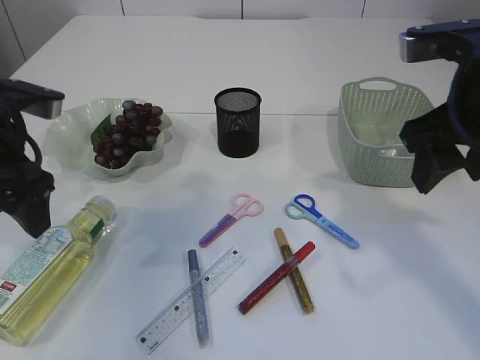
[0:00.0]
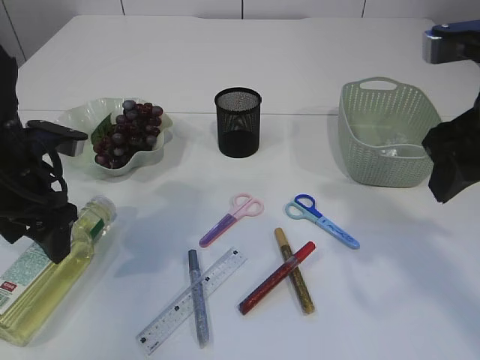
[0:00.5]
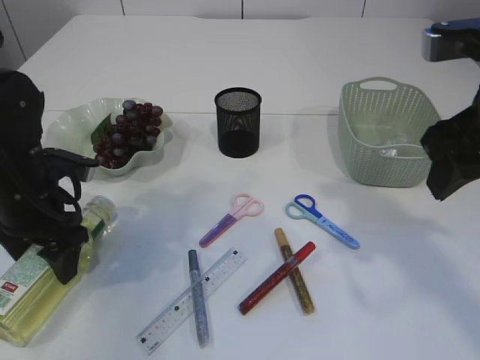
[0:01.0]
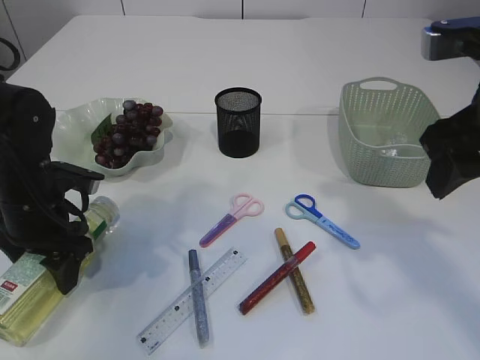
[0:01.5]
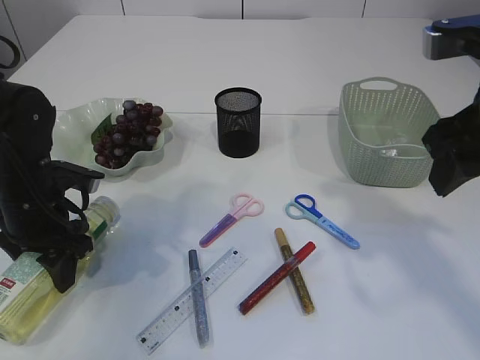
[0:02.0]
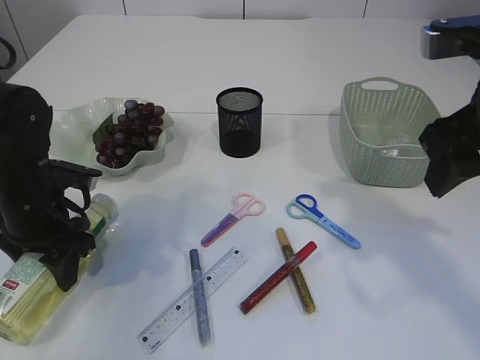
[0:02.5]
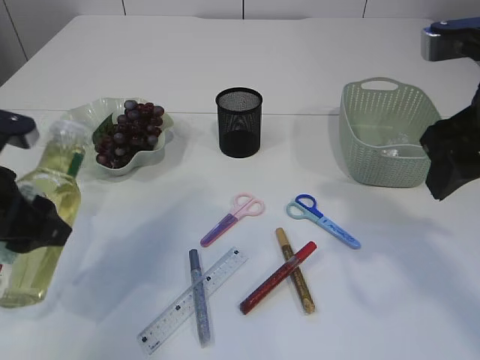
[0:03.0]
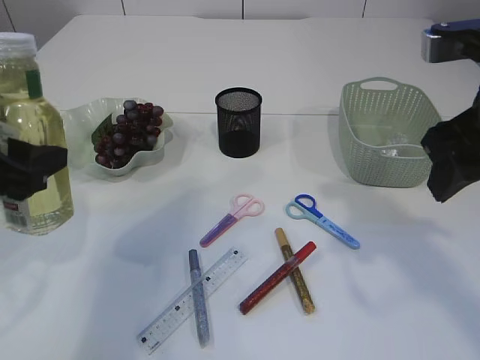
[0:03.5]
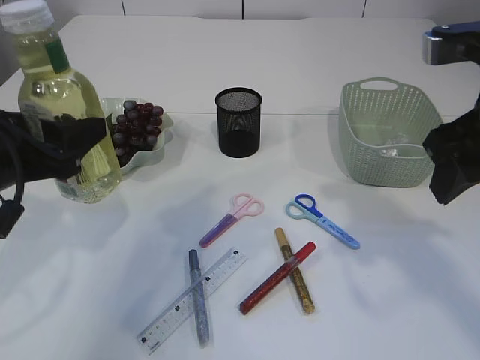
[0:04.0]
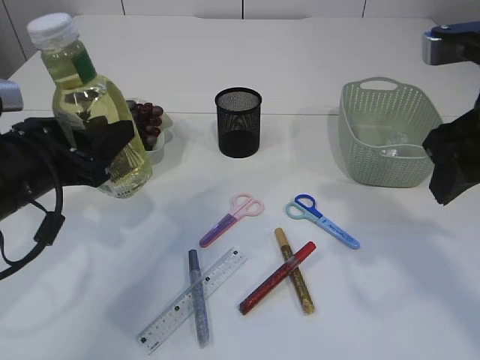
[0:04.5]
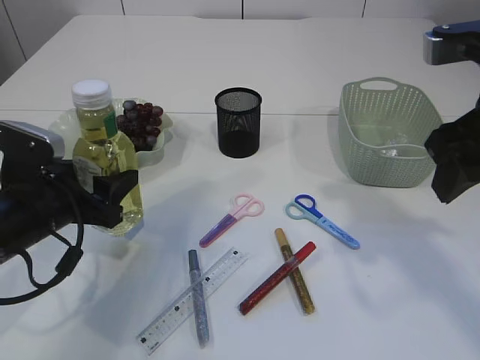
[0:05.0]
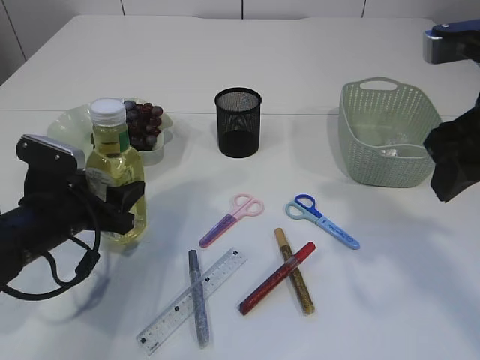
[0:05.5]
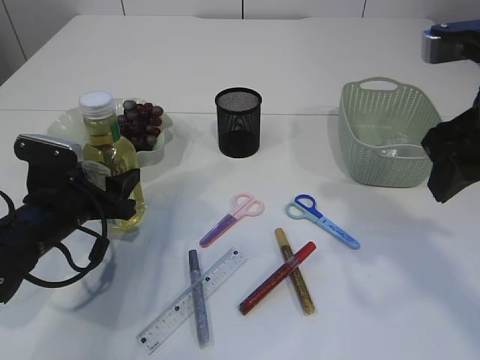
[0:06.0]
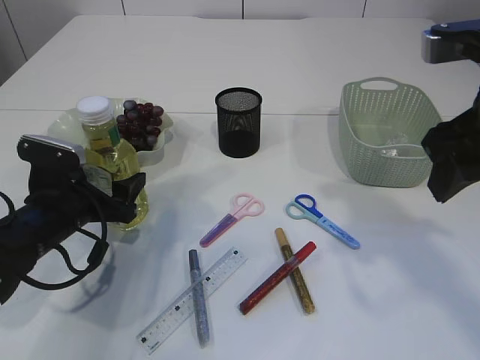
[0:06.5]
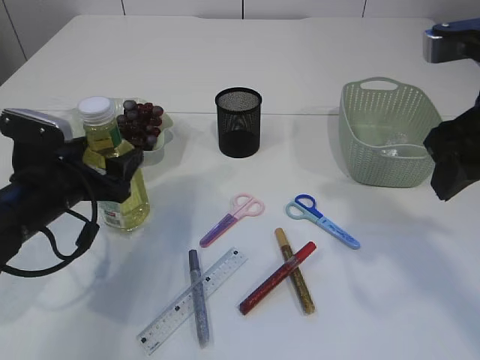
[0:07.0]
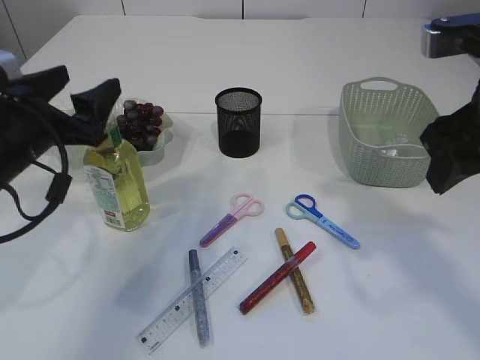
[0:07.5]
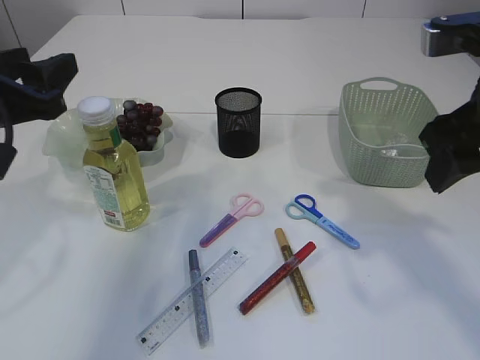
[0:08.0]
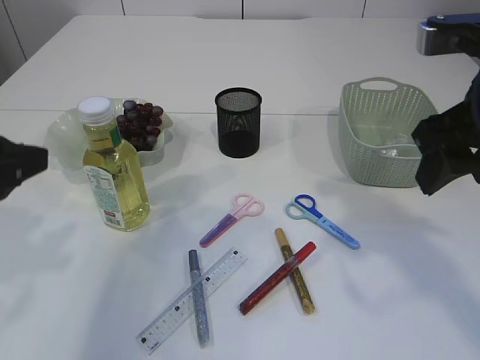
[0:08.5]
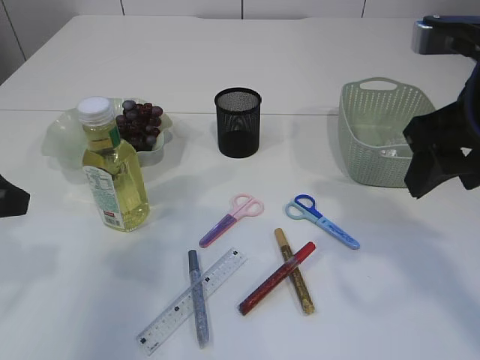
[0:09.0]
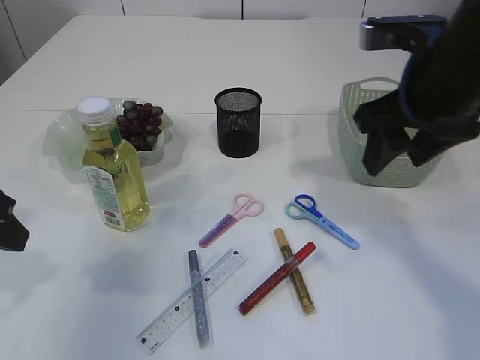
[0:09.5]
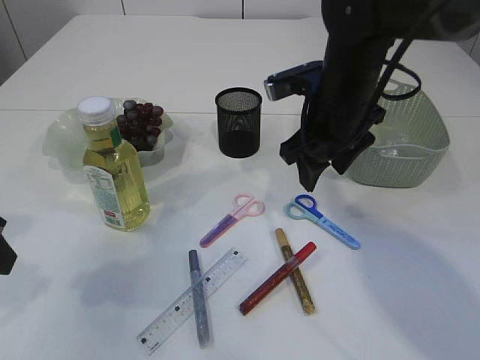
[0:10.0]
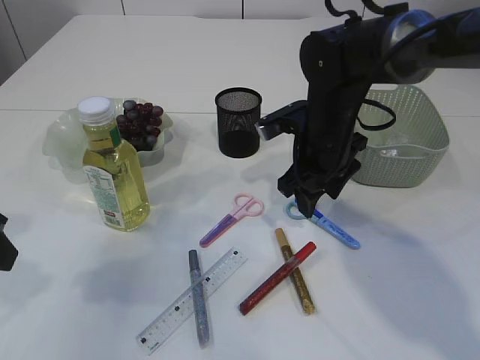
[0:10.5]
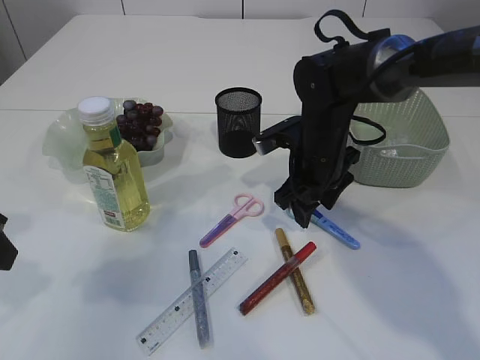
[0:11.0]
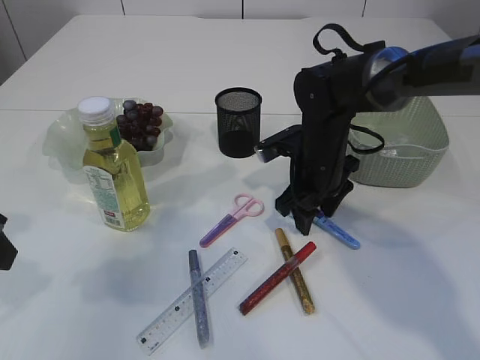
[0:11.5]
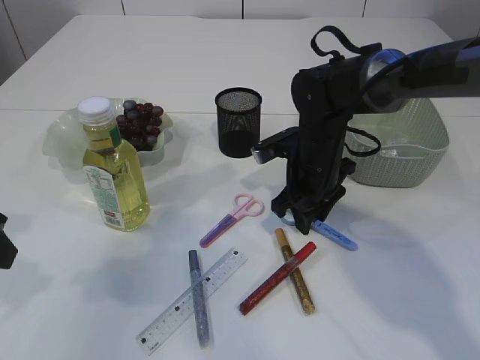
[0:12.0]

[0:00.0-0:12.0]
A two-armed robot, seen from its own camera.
Step, 0:00.0 to 0:03.0: Pick up the bottle with the left arm.
Step, 0:03.5 to 0:07.0: Place the bottle.
0:00.0 to 0:02.0: The left gripper moves downward, some 10 cm.
0:02.0 to 0:04.0: The left gripper goes approximately 10 cm upward and backward.
0:04.0 to 0:06.0: The left gripper is displaced downward and forward by about 15 cm.
0:06.0 to 0:08.0: The left gripper moves upward, some 15 cm.
0:08.0 to 0:10.0: The right gripper is displaced forward, to the left and downward by some 20 cm. Meanwhile the left gripper travels backward by some 5 cm.
0:10.0 to 0:12.0: The right gripper shifts approximately 10 cm downward.

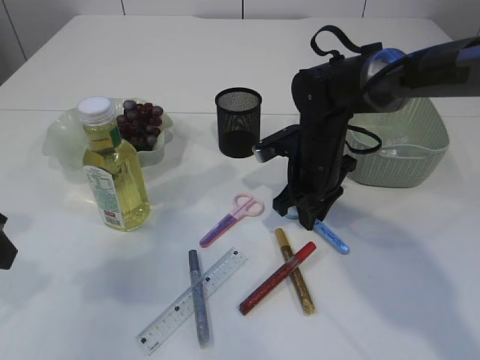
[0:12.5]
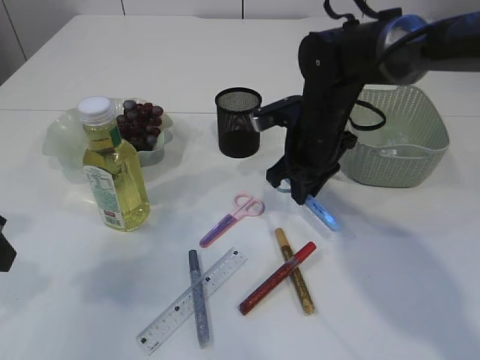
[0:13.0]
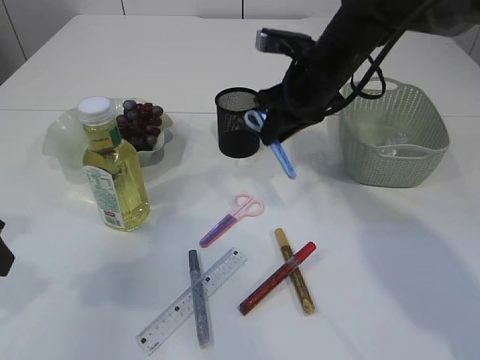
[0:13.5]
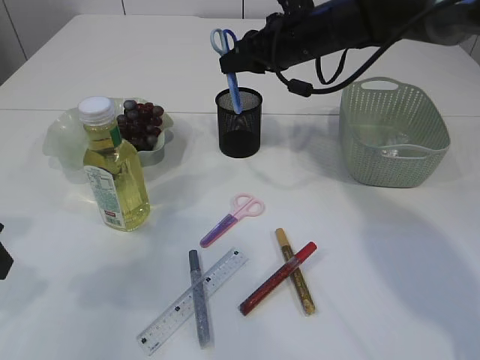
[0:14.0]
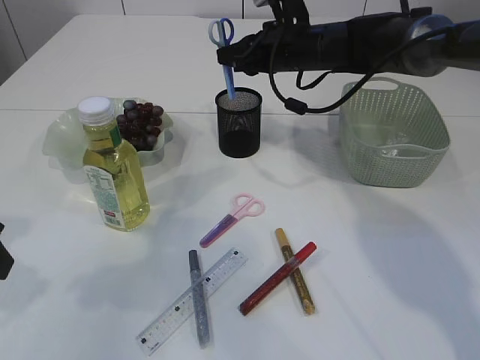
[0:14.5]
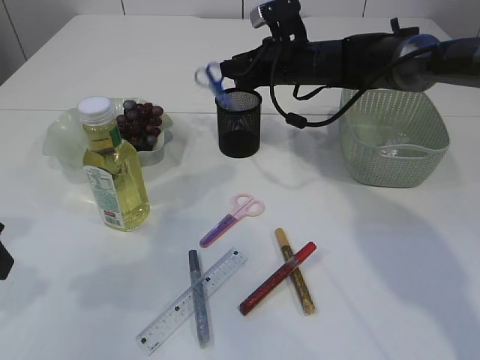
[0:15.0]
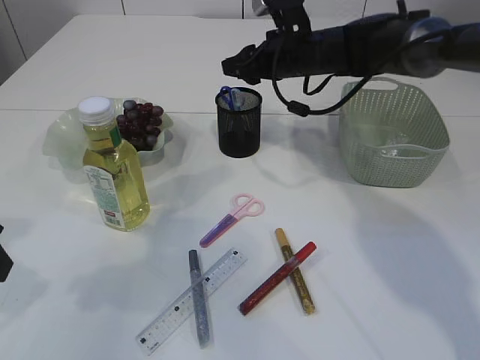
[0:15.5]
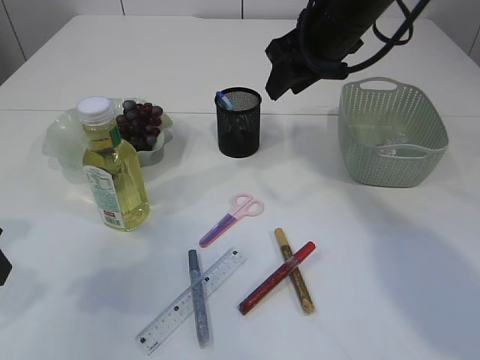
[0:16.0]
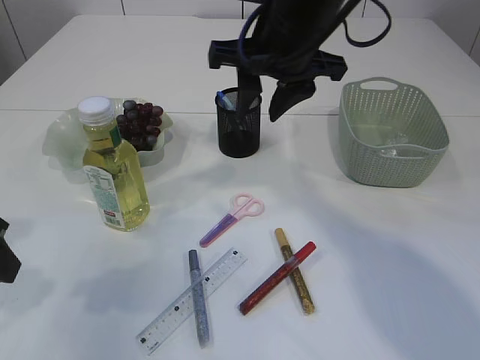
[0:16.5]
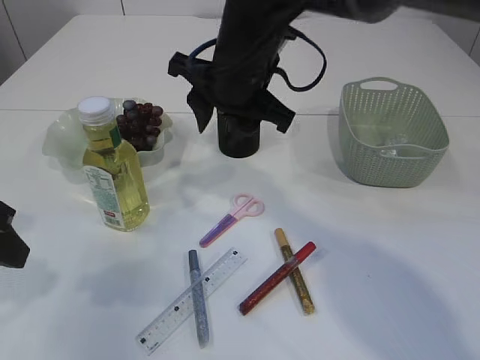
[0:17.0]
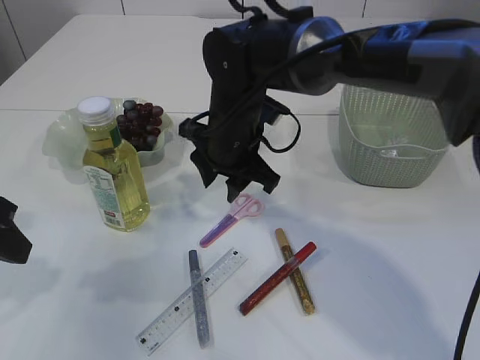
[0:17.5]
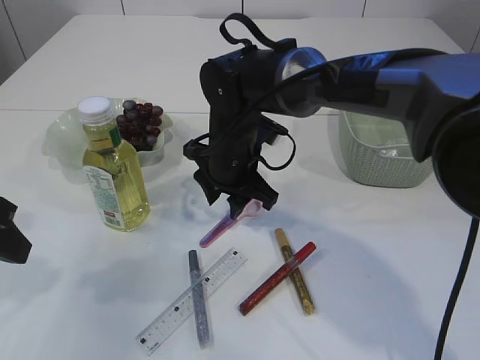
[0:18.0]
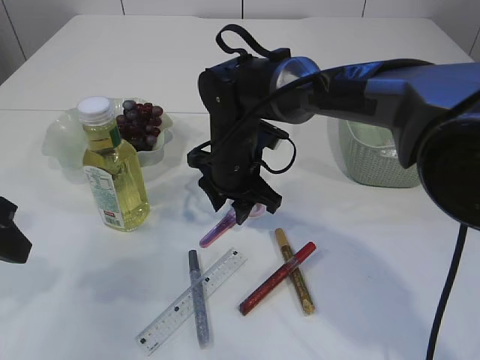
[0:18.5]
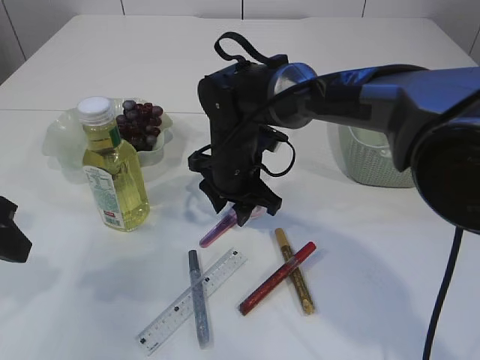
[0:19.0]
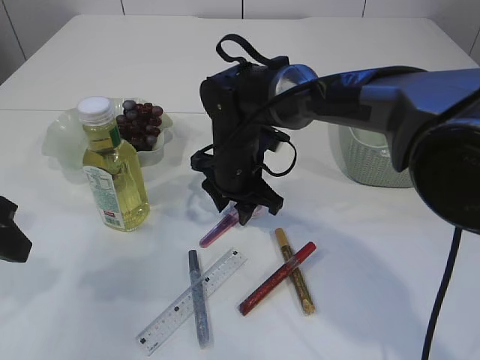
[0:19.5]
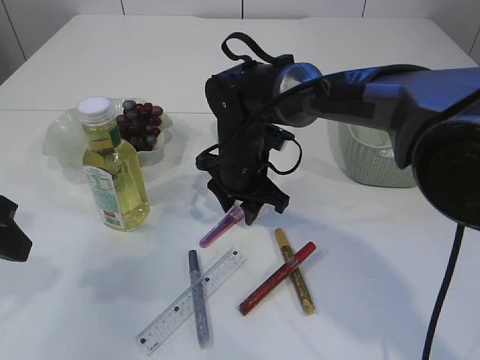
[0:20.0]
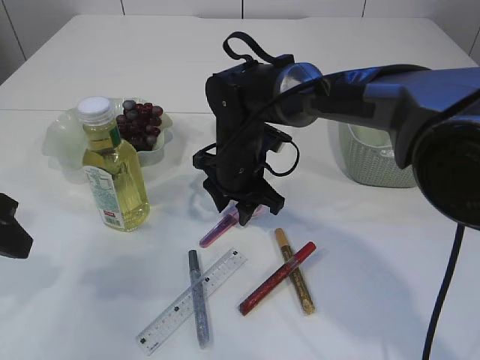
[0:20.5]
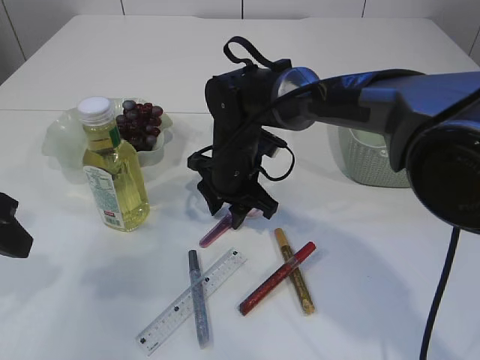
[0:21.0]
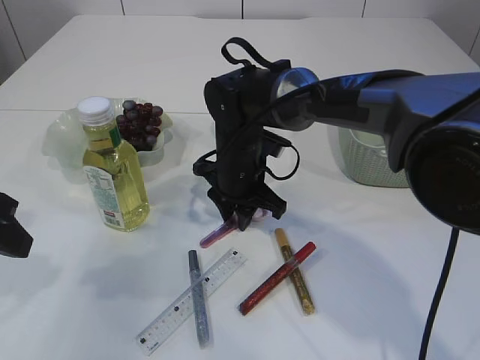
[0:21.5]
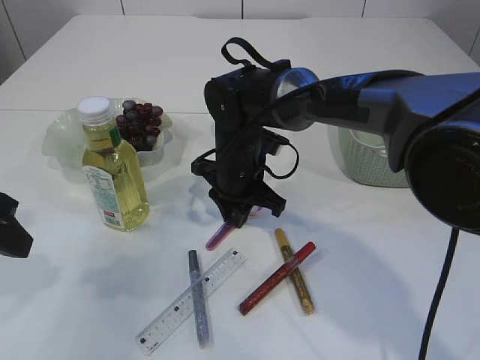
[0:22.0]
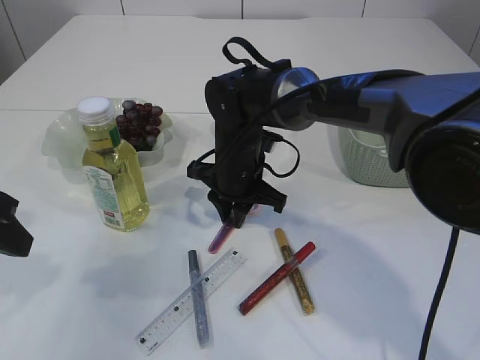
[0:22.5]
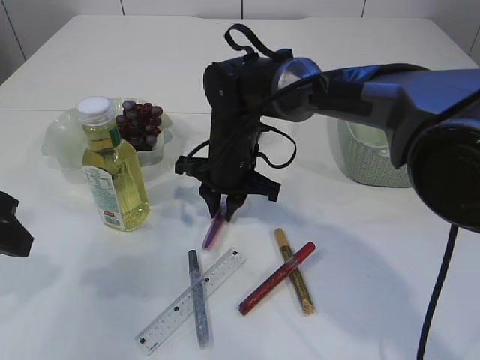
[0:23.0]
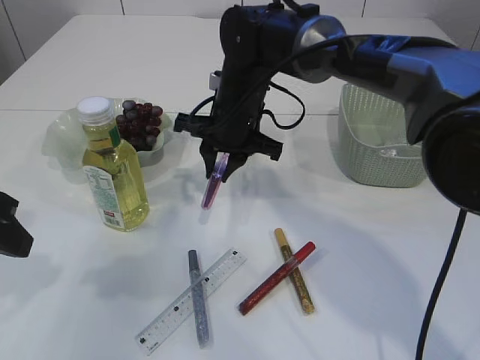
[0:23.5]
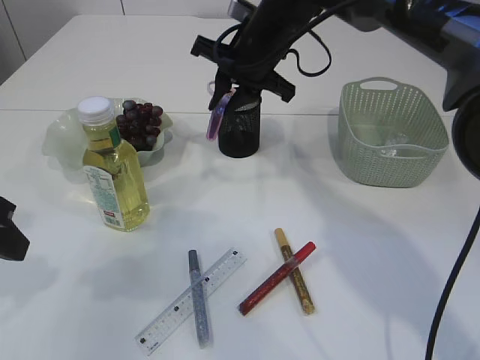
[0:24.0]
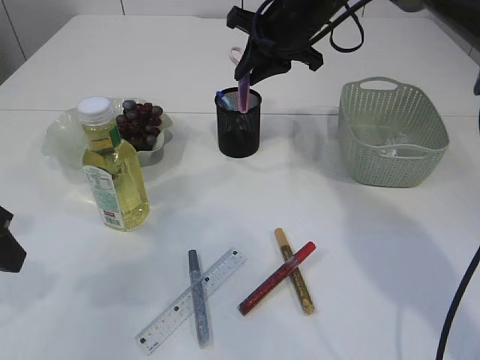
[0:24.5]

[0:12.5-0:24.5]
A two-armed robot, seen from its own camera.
Step, 0:13.5 to 0:15.5: Place the blue scissors into the pen holder.
Step, 0:16.0 to 0:23.0: pick up the pink scissors.
0:12.5 to 0:14.5: The right gripper moves upward and forward, some 15 cm.
0:14.5 to 0:16.5: The right gripper shifts some 15 cm backward and upward.
0:16.5 to 0:18.5: The right gripper shifts roughly 15 cm downward.
0:18.5 to 0:22.5: There are only small adjustments of the grippers.
0:22.5 to 0:24.5: The right gripper moves upward, to the right and forward, roughly 20 cm.

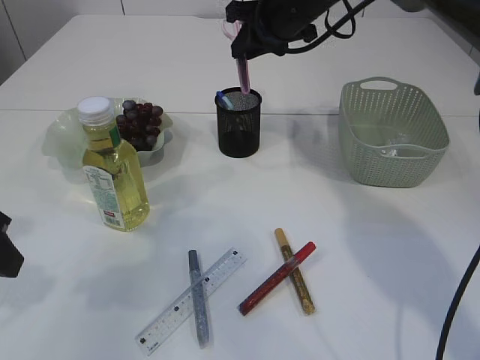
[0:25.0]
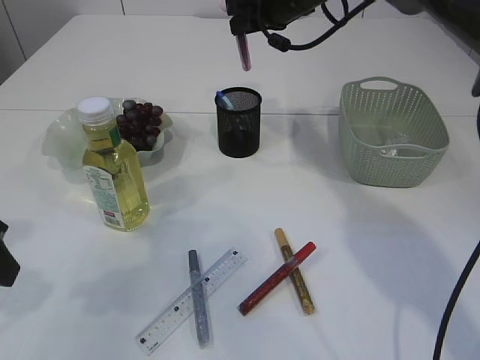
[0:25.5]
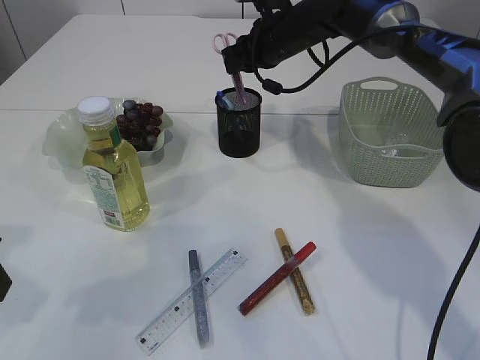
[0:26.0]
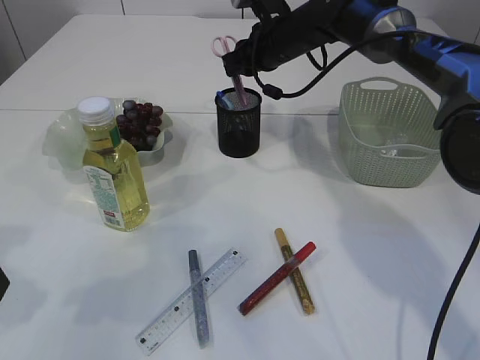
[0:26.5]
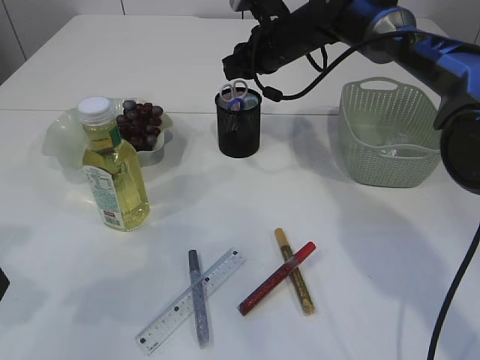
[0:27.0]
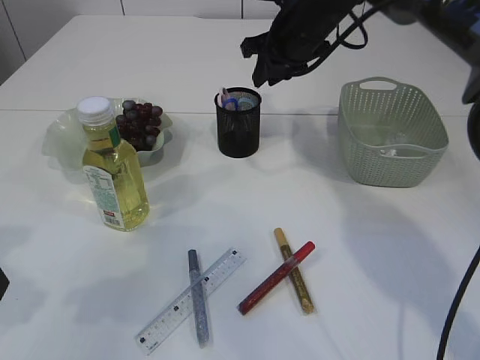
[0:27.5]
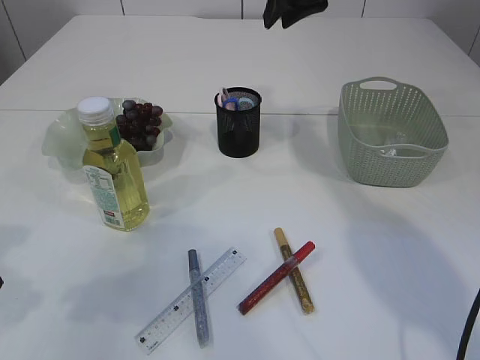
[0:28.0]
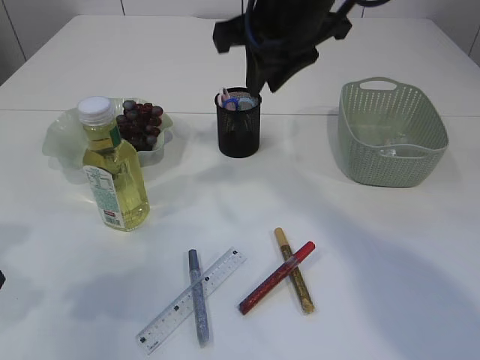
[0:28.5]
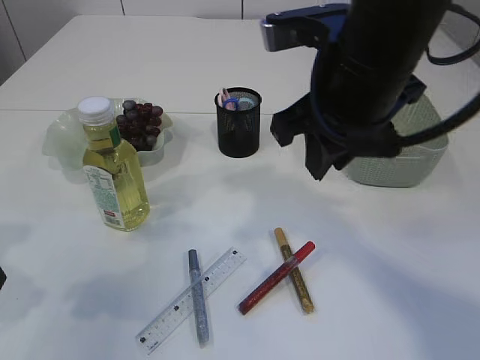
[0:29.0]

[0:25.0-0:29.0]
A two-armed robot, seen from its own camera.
Step, 0:25.0 to 0:27.0: Place the pink scissors into the pen holder.
0:25.0 to 0:27.0: The right gripper moves downward, approximately 5 cm.
0:27.0 to 0:29.0: The right gripper is displaced backward by about 25 cm.
